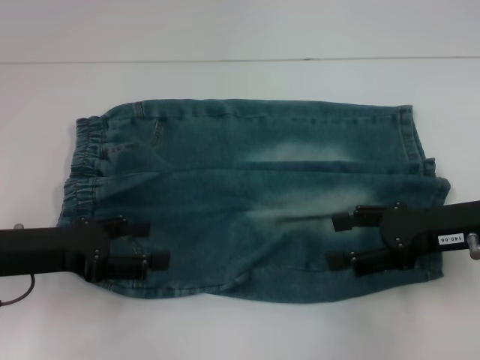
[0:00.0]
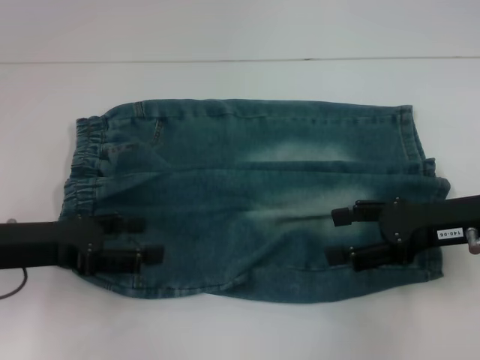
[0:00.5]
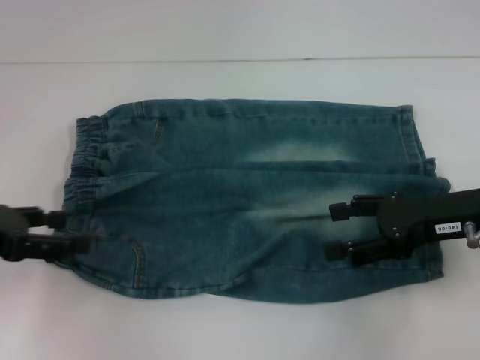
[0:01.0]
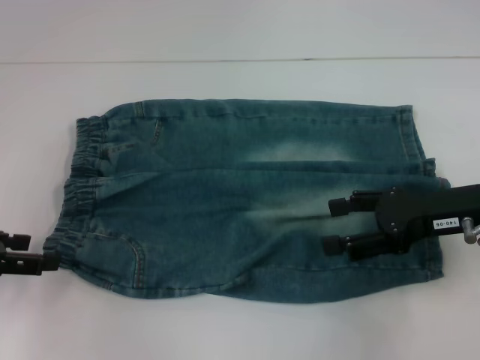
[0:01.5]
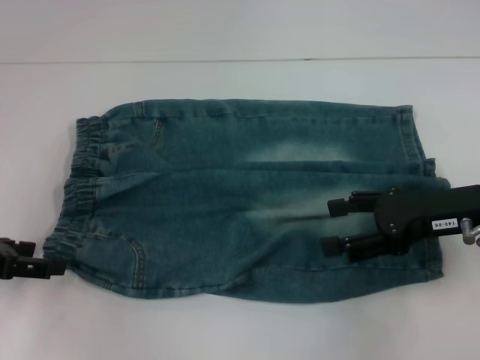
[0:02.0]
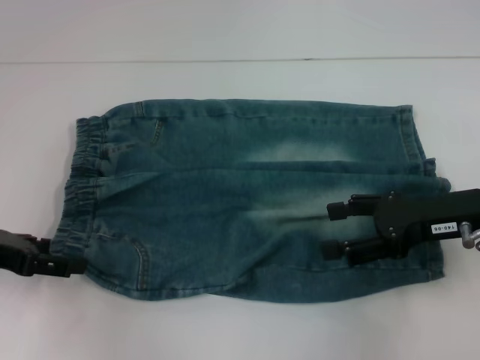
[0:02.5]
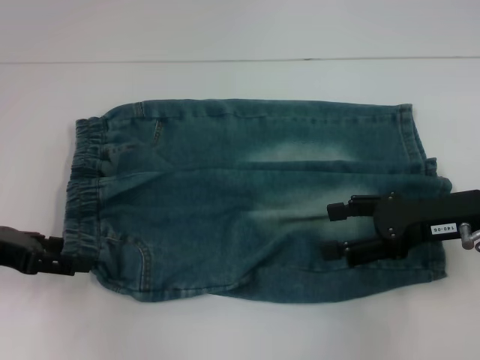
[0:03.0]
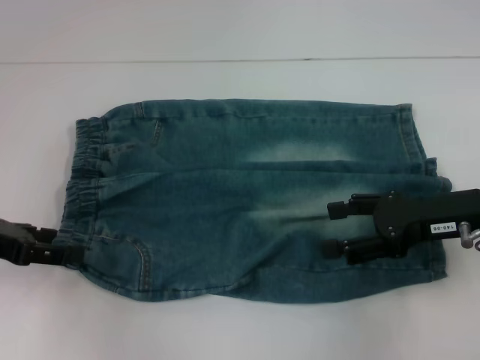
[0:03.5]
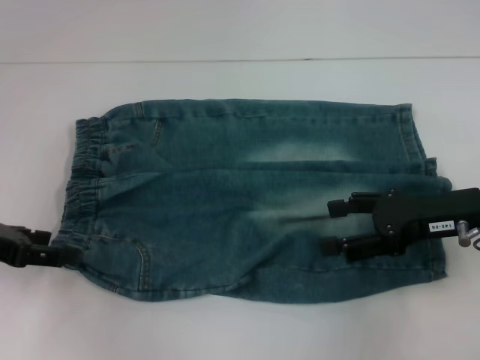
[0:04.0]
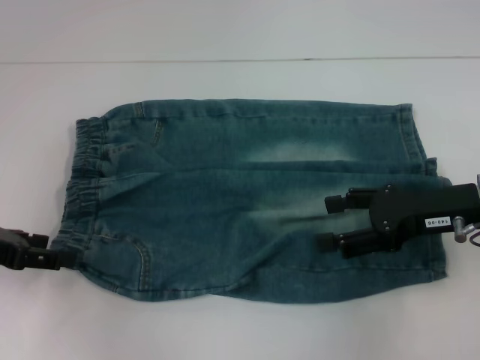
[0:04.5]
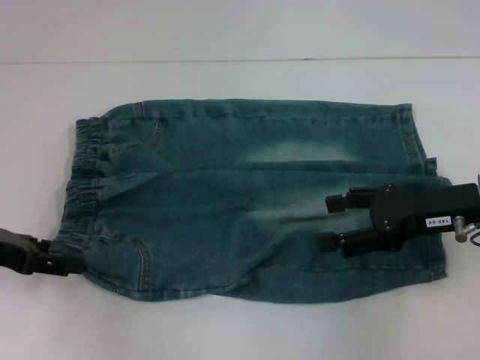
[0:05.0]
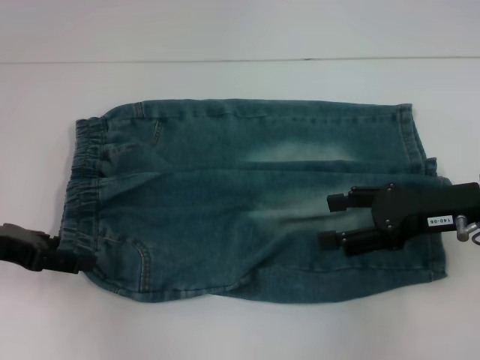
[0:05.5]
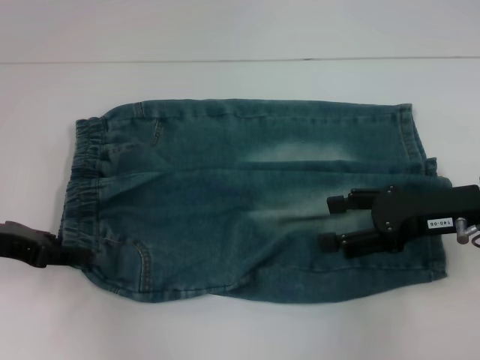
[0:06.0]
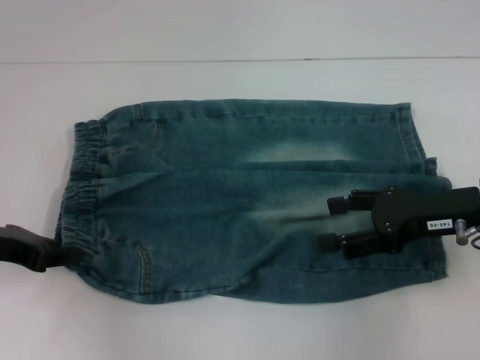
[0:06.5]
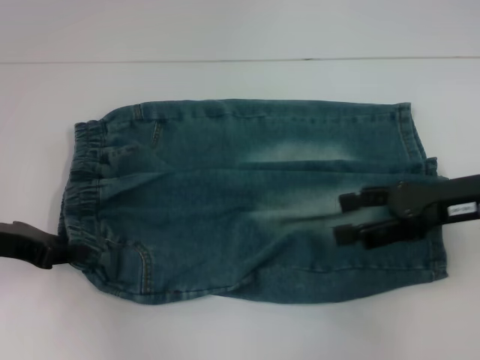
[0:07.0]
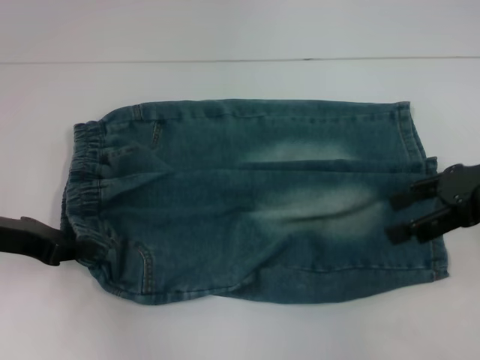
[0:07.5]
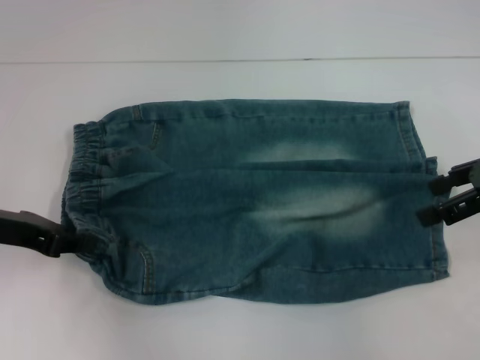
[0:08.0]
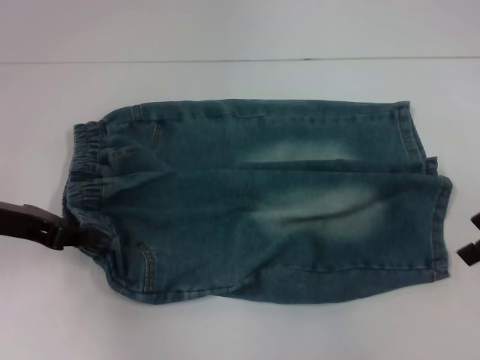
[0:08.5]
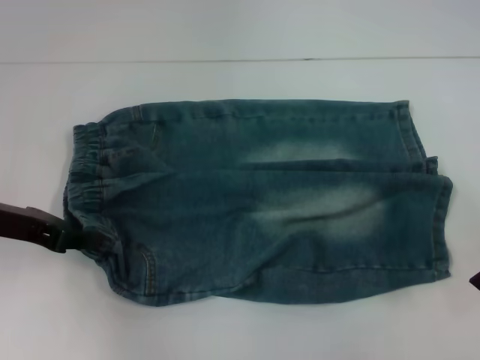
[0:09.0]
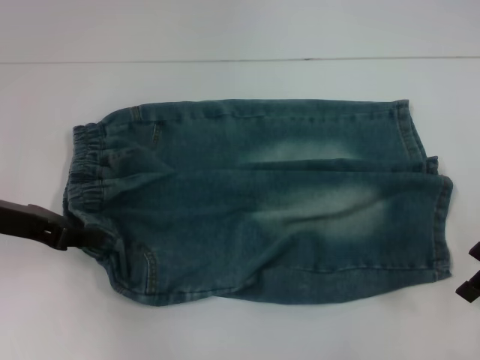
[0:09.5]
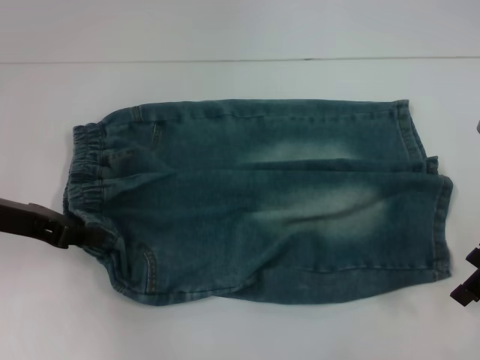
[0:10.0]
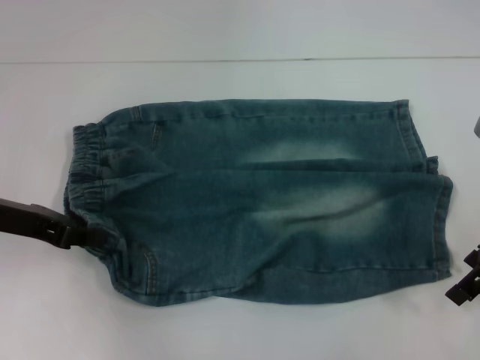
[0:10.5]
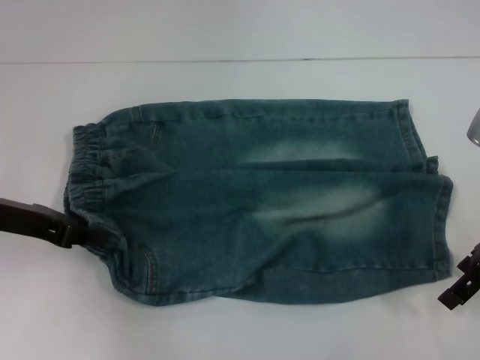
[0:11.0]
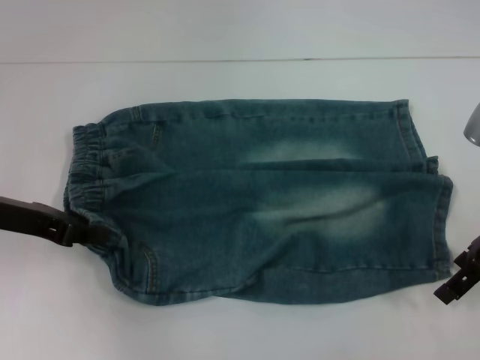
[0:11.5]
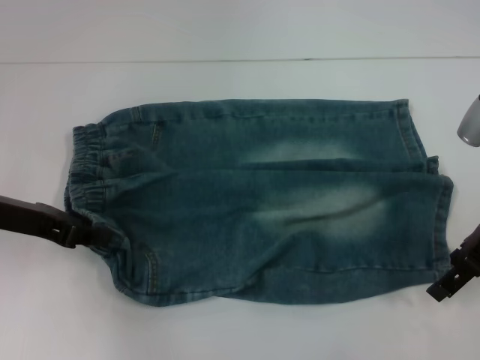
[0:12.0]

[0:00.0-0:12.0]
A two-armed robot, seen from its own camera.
Step, 0:00.0 to 0:03.0: Hold the lower left waistband with your left hand.
0:00.0 to 0:02.0: The left gripper shifts about 5 cm to the left.
0:02.0 to 0:06.0: The grippers move only a little.
0:06.0 to 0:08.0: The left gripper closes. Meanwhile the right gripper moves upward and to the right, approximately 10 cm.
0:10.0 to 0:12.0: The grippers make only small movements.

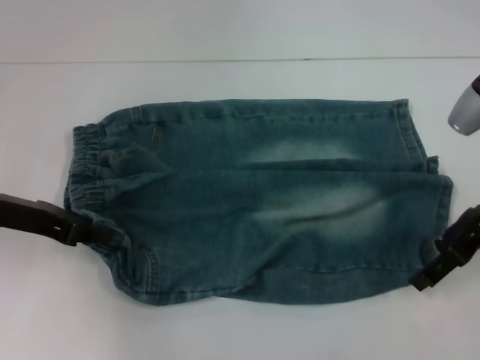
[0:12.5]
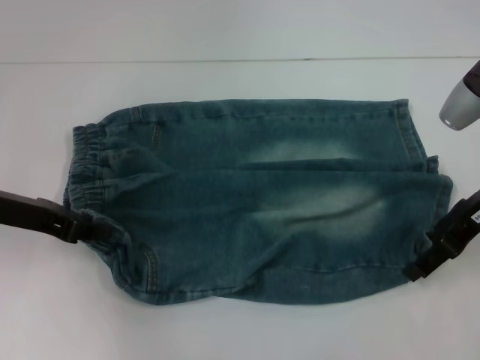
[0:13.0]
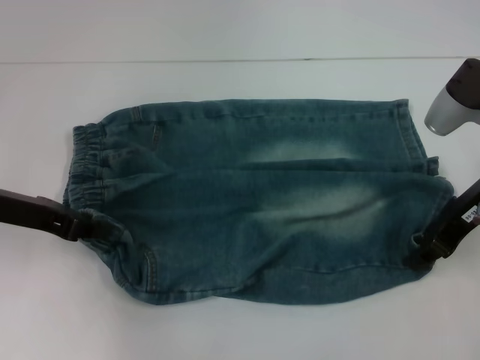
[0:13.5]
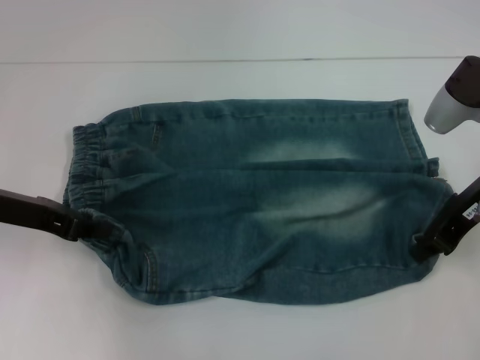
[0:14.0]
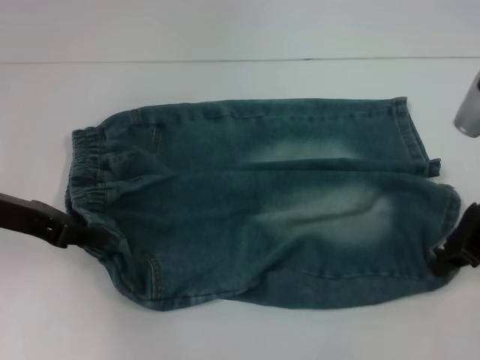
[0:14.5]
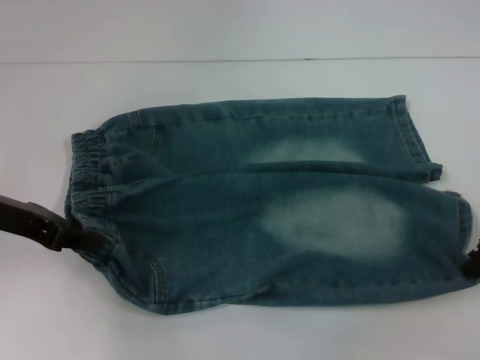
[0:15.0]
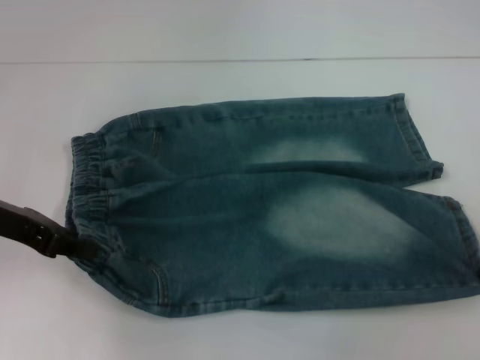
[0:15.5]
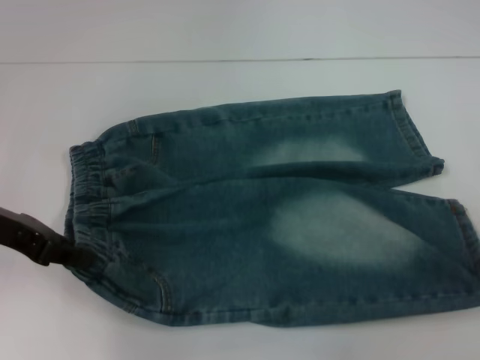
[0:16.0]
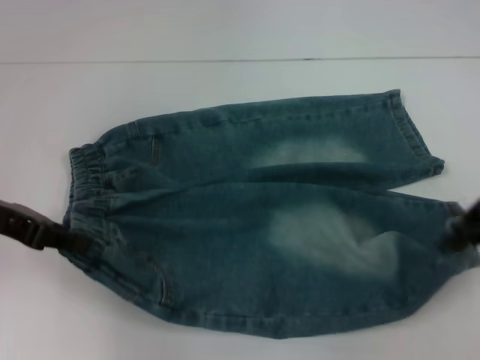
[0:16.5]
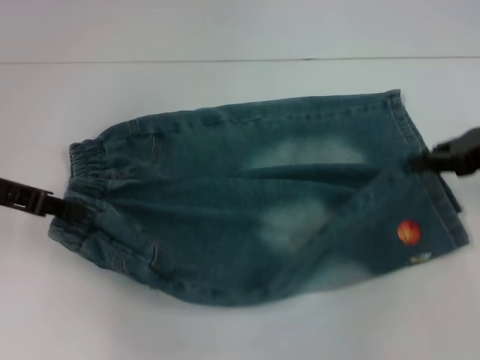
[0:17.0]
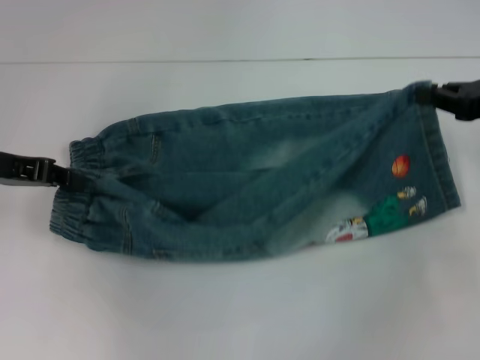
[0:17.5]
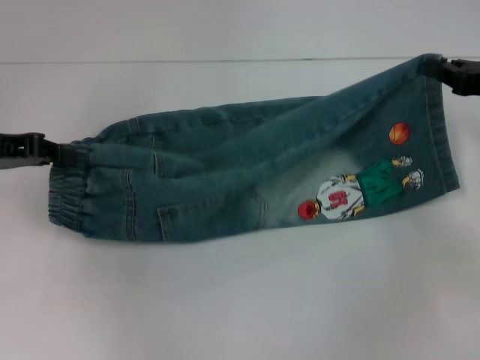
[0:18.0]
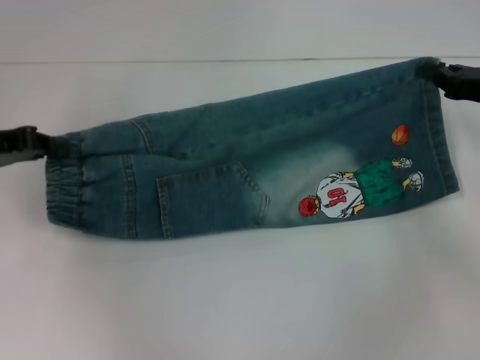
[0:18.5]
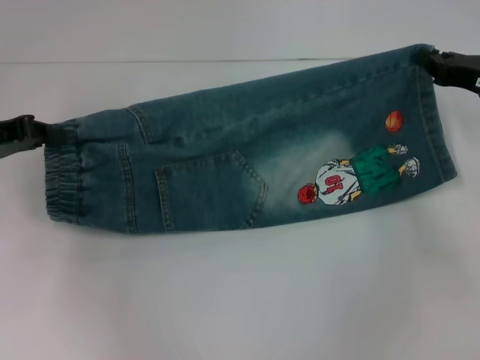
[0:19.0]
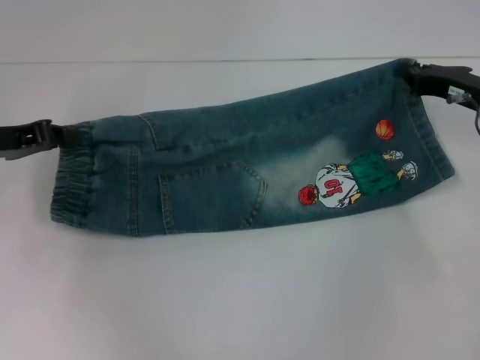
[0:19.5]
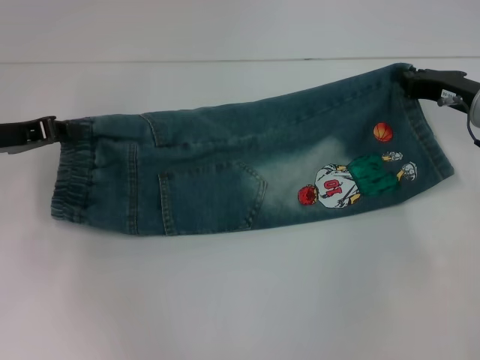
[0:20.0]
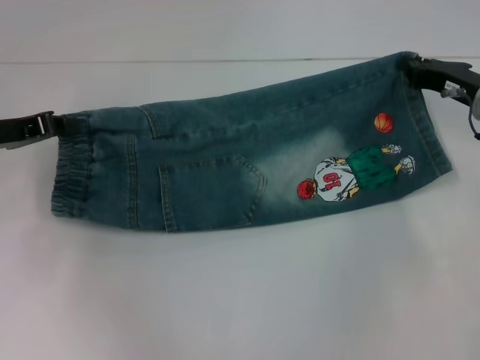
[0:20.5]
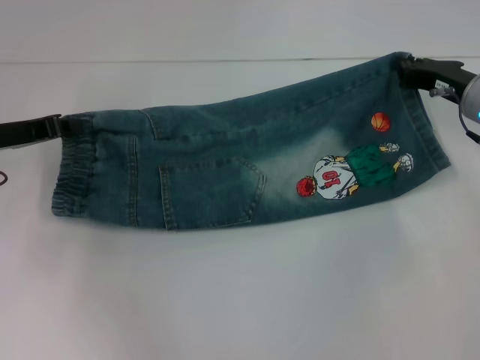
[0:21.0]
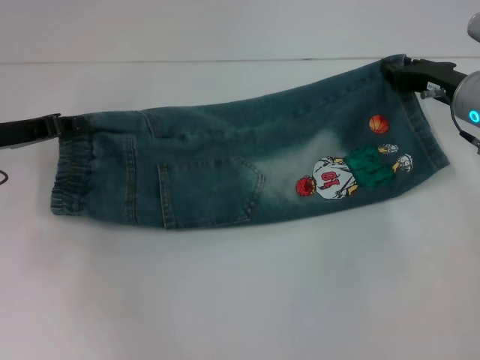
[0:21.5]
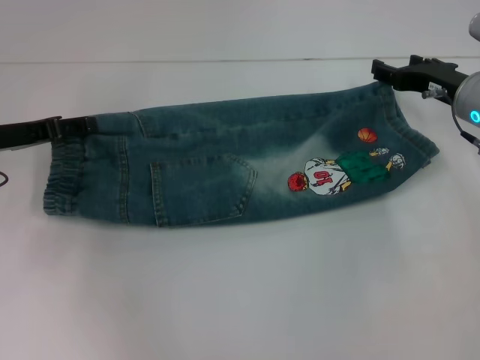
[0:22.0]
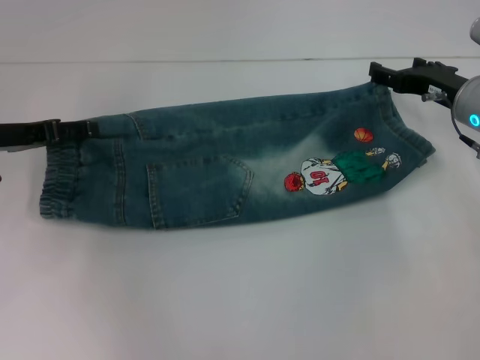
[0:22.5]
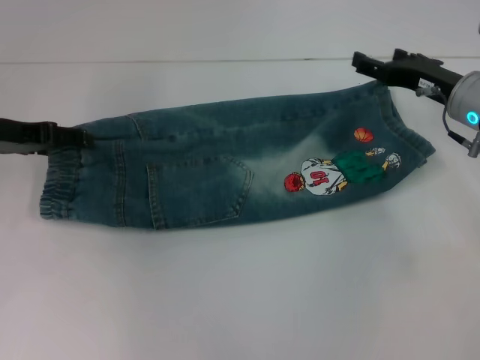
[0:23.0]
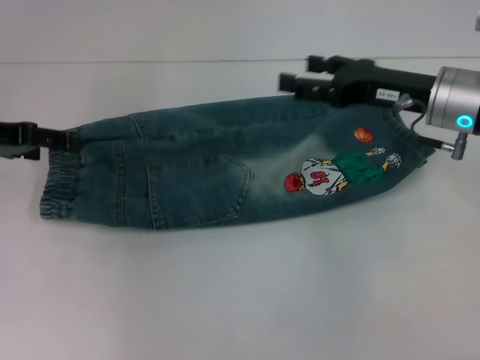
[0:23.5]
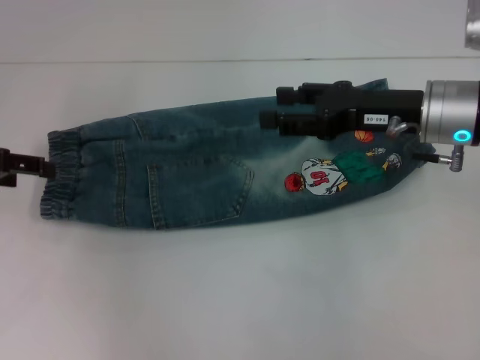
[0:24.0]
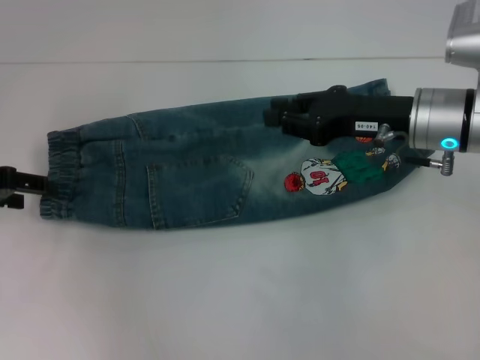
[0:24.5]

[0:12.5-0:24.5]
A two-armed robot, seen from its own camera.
Step, 0:14.5 to 0:23.0: Fold upward with your right hand.
0:12.5 to 0:14.5: The right gripper closes.
0:14.5 to 0:16.5: The right gripper moves about 5 cm.
0:16.5 to 0:18.5: The right gripper heads downward, covering some 5 cm.
0:18.5 to 0:20.5: The right gripper ends up approximately 5 cm from where it was.
0:20.5 to 0:22.5: The left gripper opens its fingers; the right gripper opens.
0:22.5 to 0:24.5: The right gripper moves to the left, roughly 5 cm, and closes its fingers. The left gripper shifts by some 5 cm.

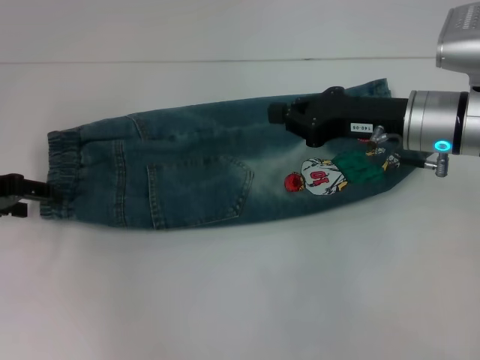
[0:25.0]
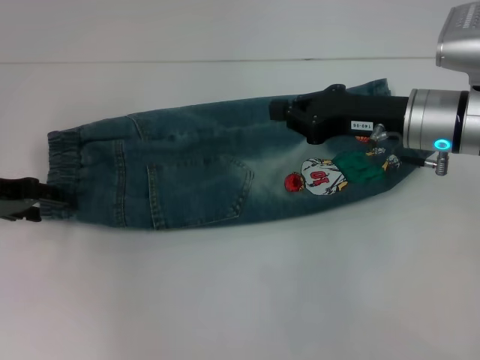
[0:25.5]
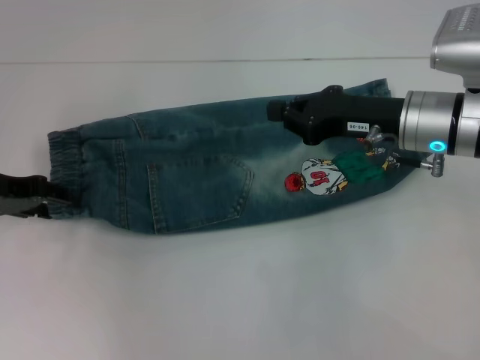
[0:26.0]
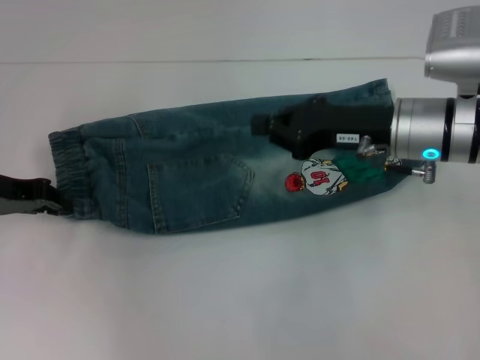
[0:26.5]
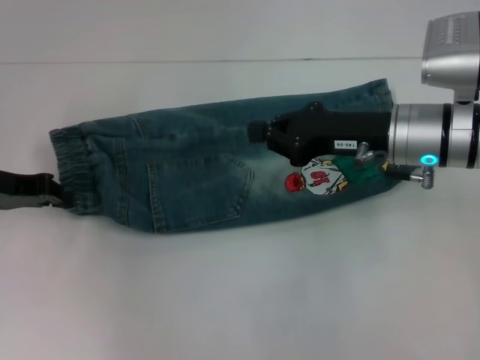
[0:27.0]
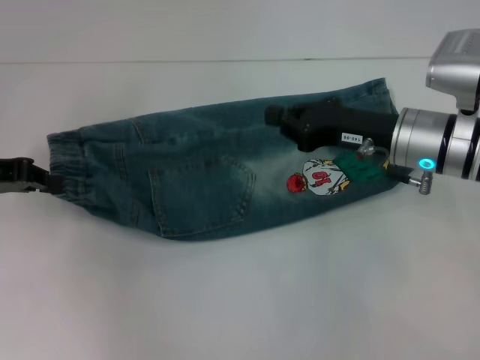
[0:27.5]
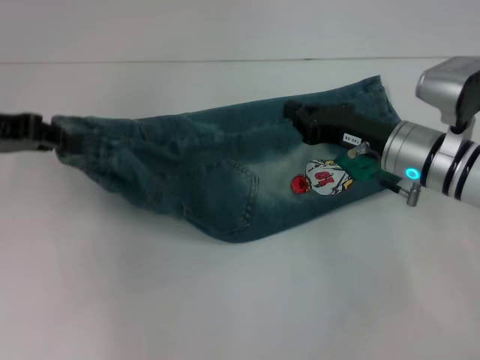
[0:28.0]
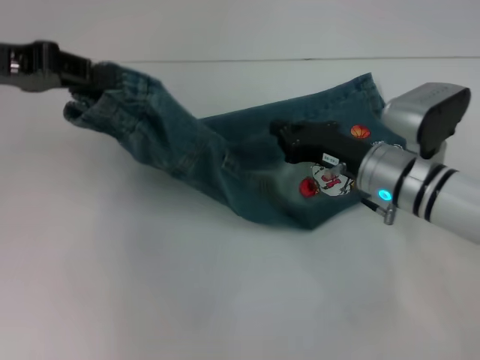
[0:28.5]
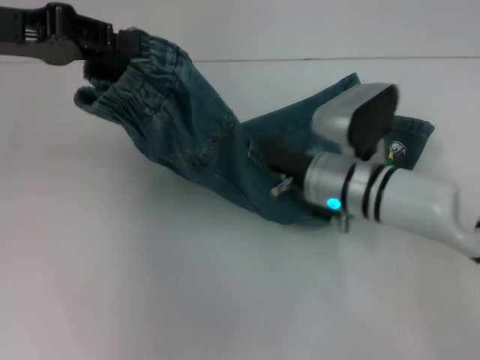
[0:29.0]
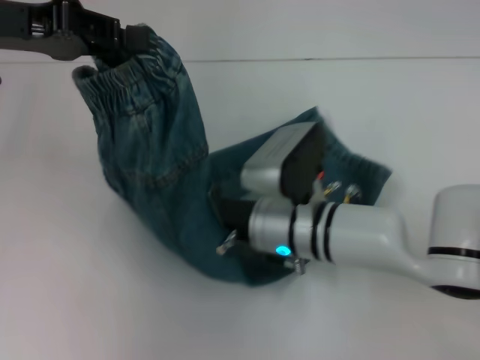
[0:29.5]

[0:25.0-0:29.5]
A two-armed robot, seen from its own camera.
0:25.0 to 0:27.0: The left gripper closes.
0:27.0 to 0:29.5: The left gripper is displaced upward by approximately 15 cm; the right gripper shifts approximately 15 cm to the left, downward and backward.
